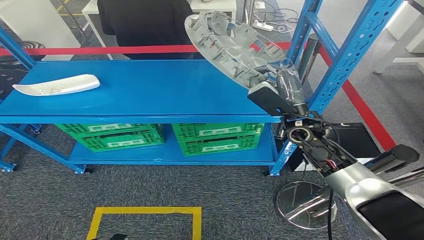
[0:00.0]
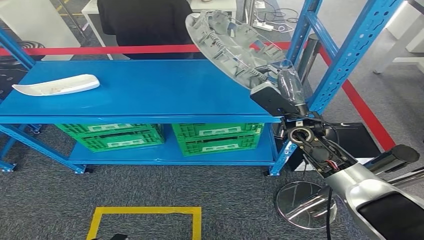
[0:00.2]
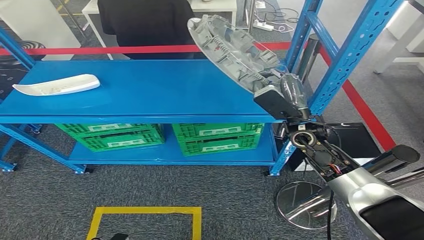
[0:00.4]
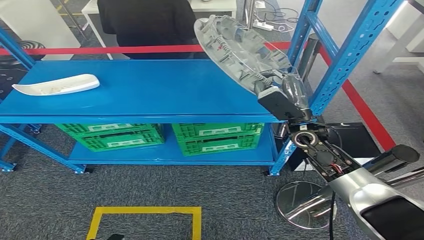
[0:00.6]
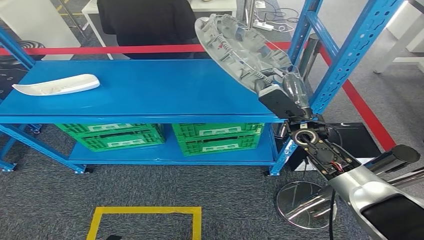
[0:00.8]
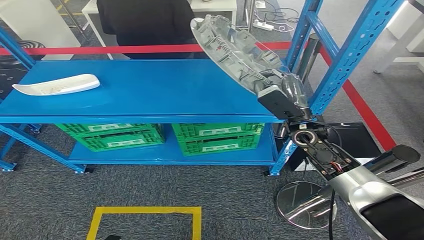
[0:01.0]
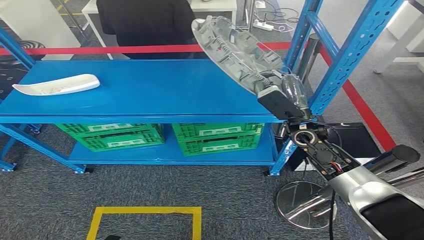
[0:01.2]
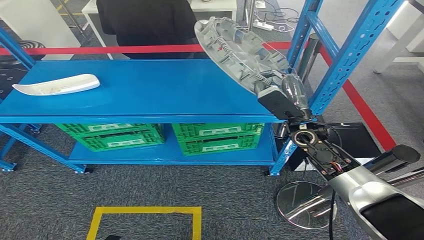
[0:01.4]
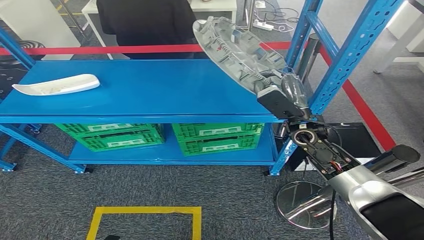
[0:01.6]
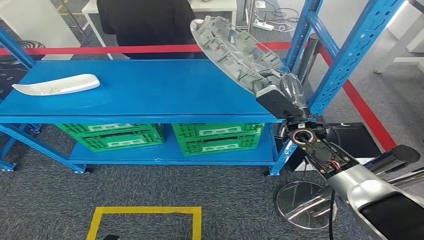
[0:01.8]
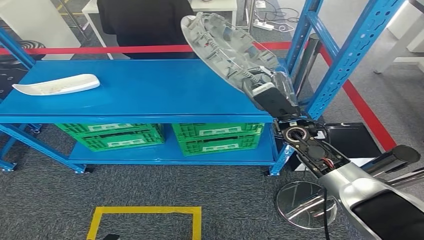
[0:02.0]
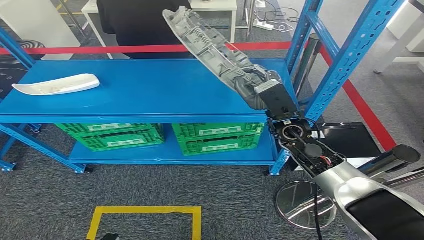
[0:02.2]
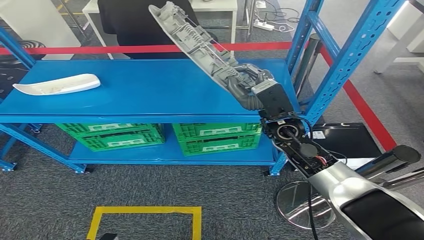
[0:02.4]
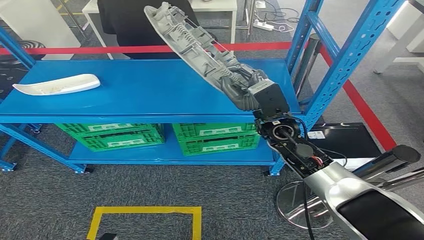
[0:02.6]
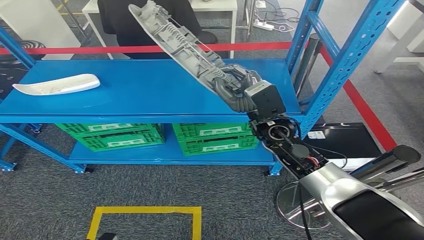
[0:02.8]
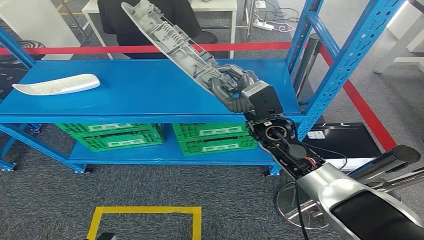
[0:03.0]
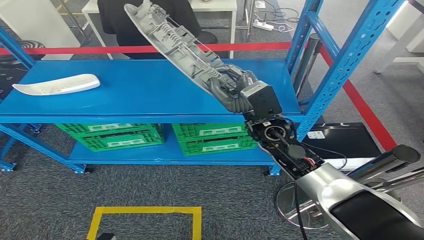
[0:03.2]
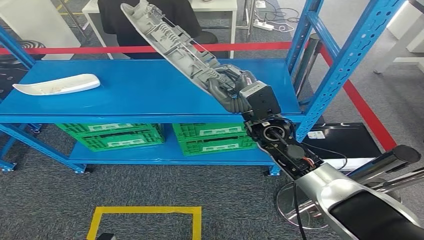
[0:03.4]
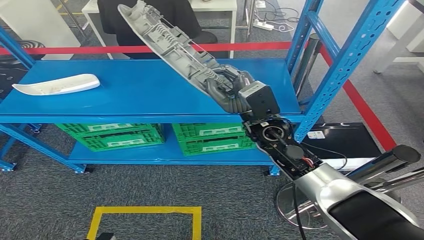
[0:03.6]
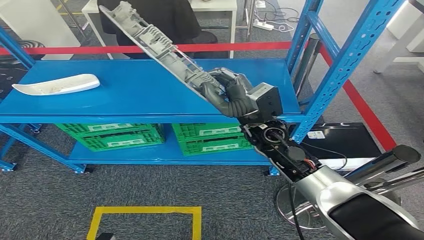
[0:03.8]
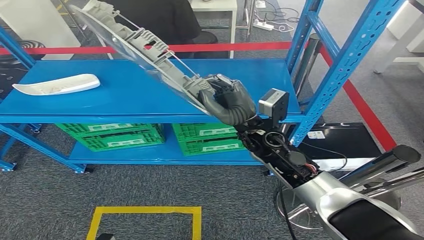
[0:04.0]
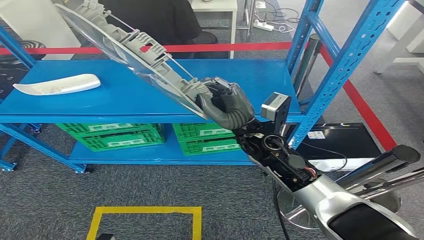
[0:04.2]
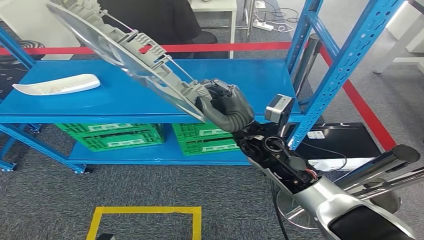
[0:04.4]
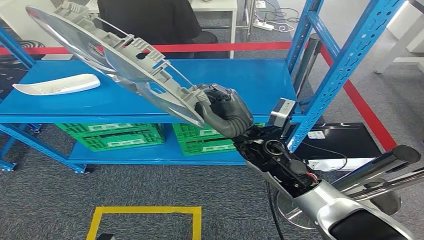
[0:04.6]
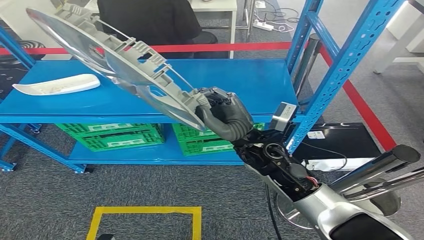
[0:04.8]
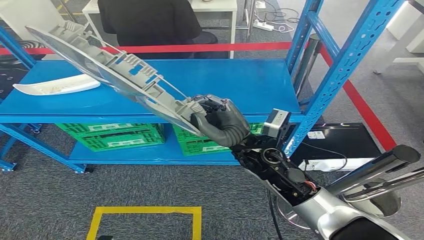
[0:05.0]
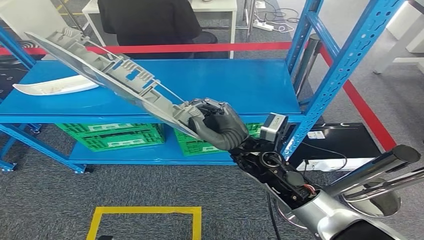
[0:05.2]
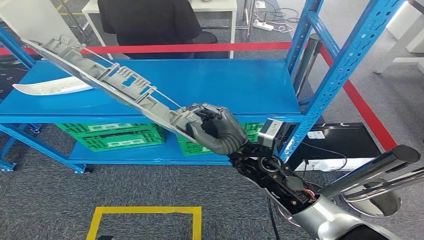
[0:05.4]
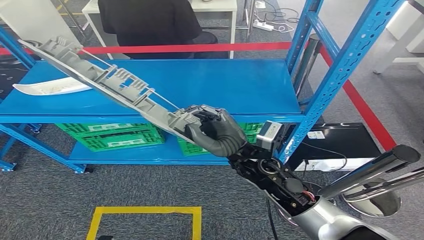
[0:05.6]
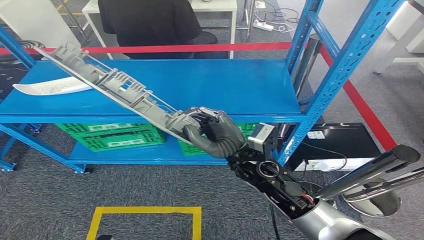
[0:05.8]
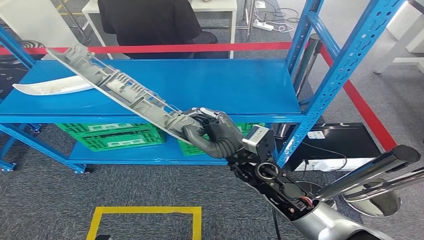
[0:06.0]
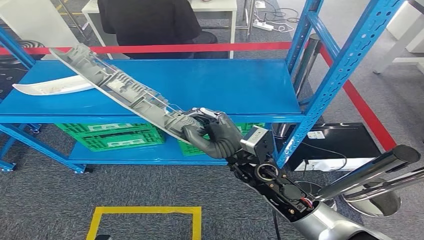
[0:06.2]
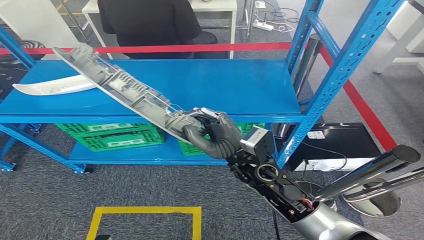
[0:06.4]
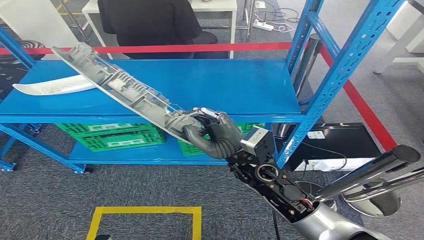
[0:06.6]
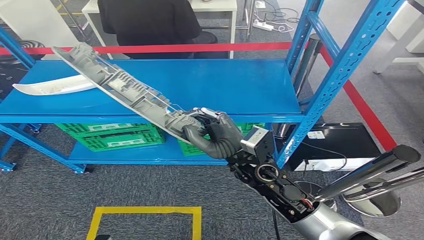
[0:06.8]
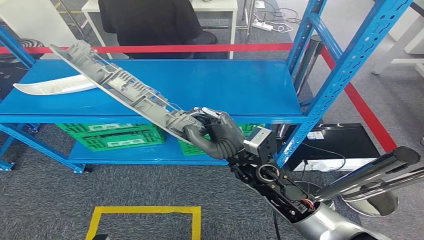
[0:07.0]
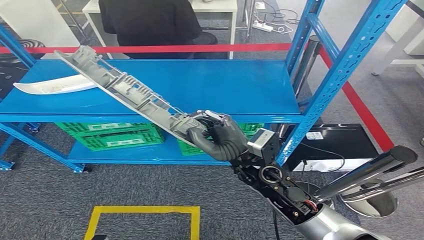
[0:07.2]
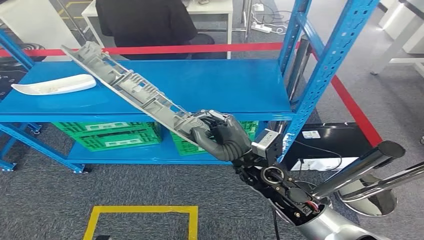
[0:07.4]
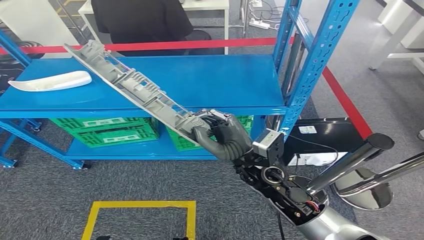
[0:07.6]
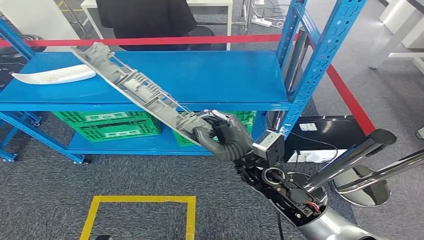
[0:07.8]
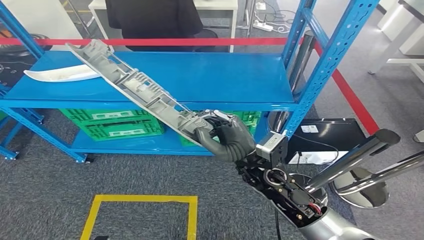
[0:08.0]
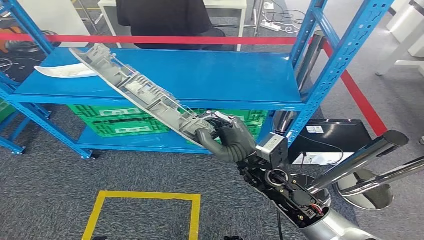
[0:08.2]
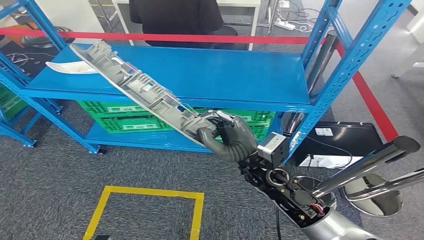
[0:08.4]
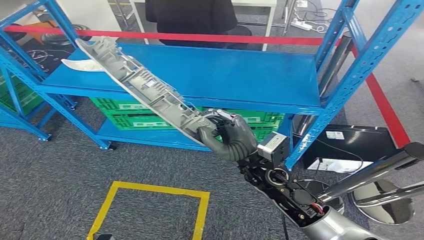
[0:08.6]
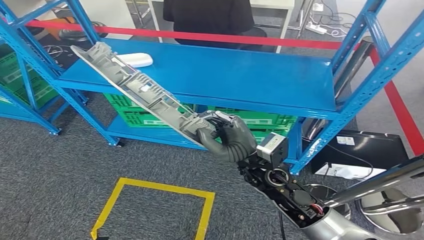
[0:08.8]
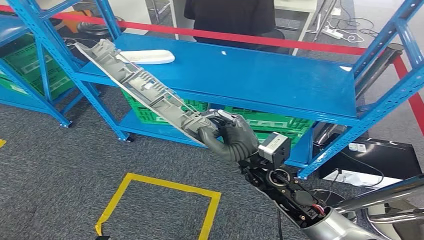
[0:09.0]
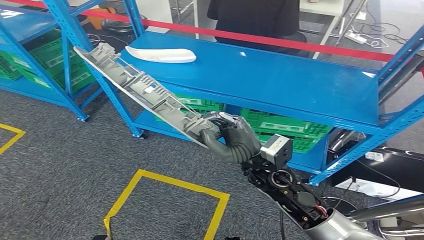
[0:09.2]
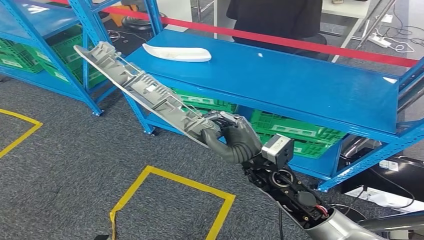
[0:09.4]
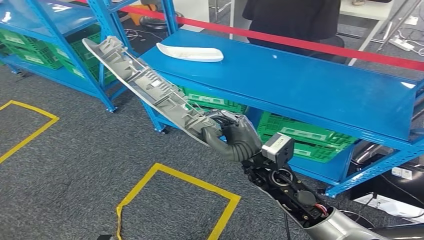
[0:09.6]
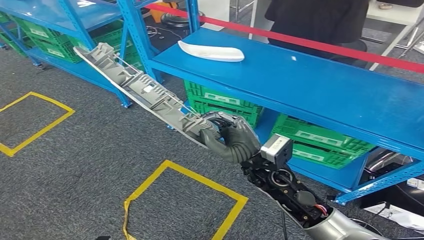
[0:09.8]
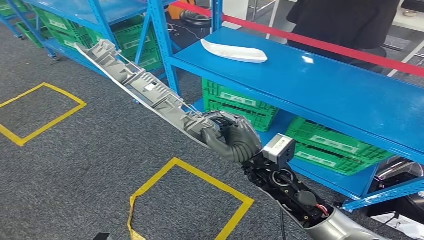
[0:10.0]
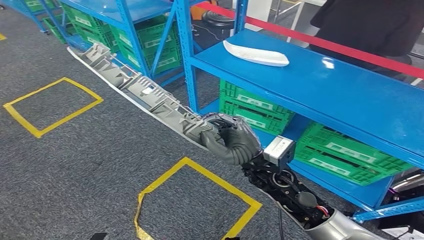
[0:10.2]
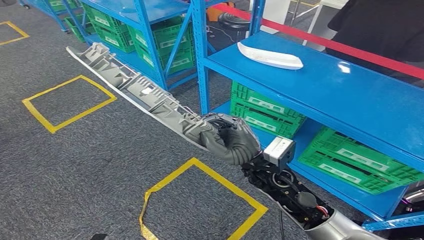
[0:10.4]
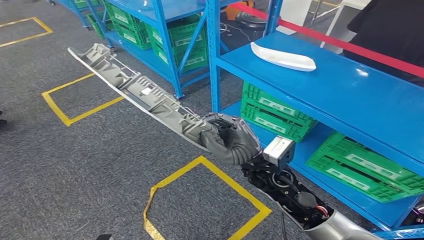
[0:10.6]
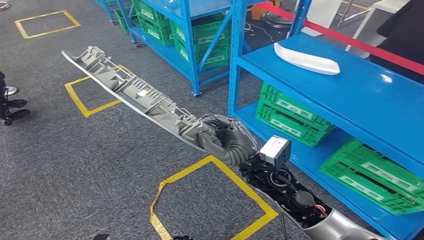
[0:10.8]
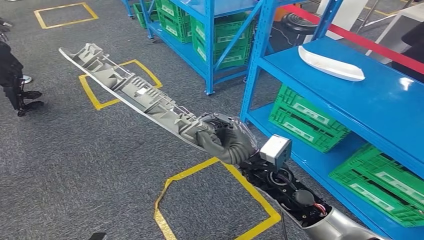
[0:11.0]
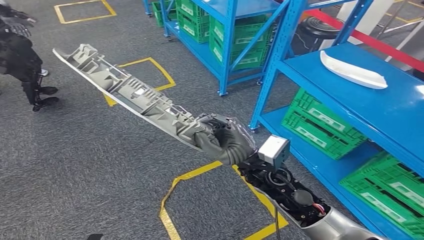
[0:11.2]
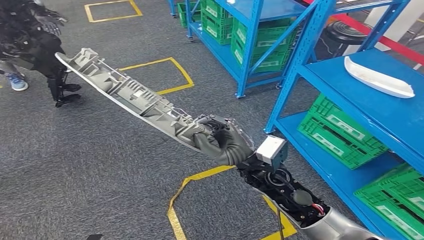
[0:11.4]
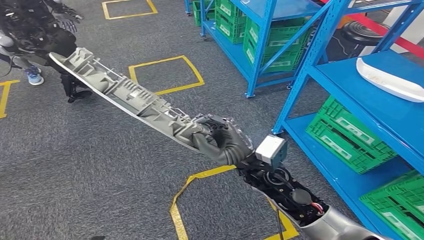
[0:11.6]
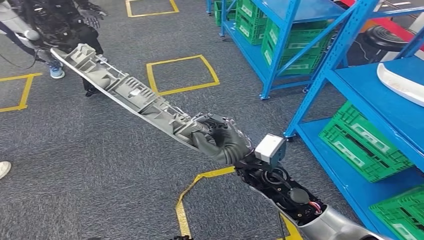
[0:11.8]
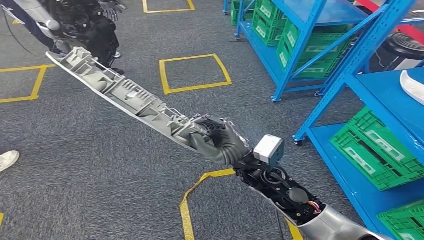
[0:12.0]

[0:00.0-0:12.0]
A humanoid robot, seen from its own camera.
0:00.0 to 0:01.6: The hands move only a little.
0:01.6 to 0:03.0: The right hand heads to the left, covering roughly 10 cm.
0:04.4 to 0:06.0: The right hand moves backward, roughly 5 cm.

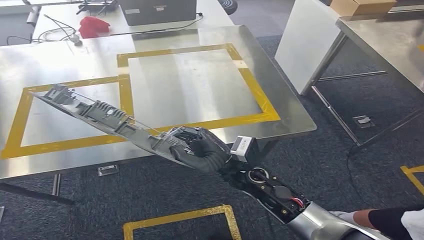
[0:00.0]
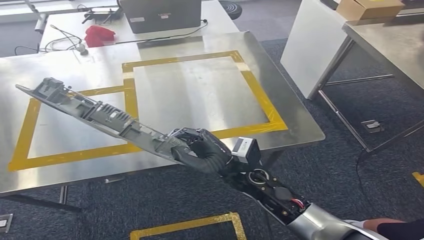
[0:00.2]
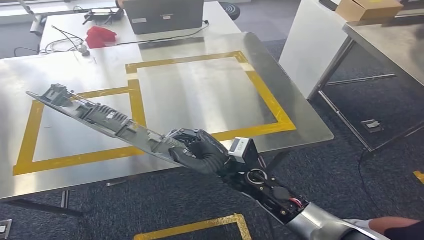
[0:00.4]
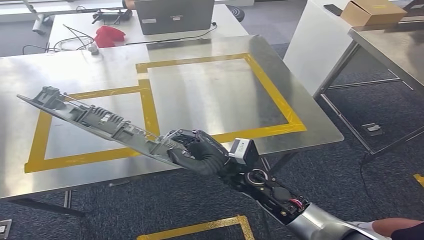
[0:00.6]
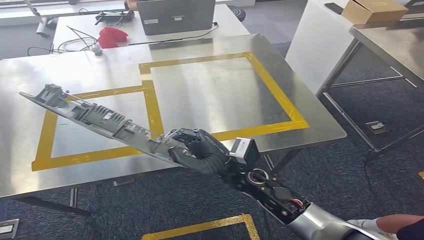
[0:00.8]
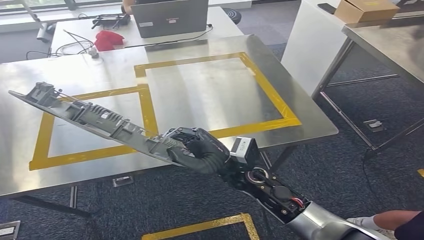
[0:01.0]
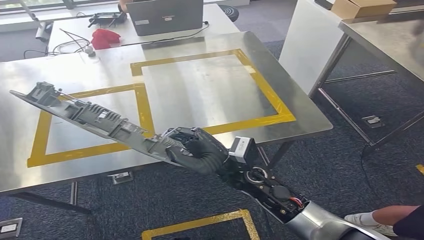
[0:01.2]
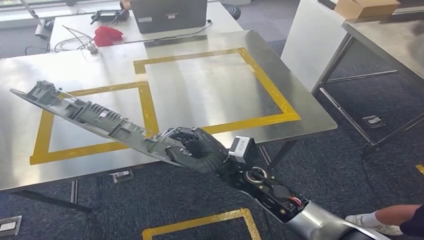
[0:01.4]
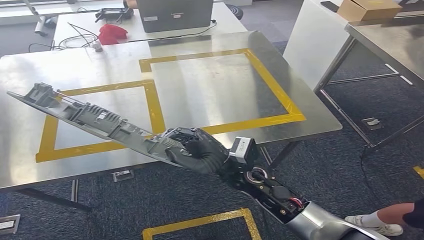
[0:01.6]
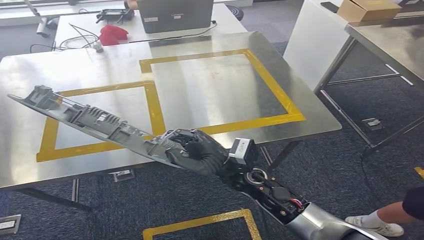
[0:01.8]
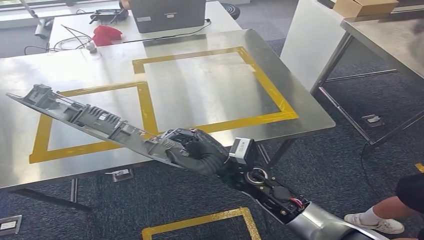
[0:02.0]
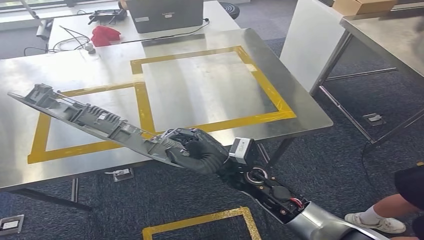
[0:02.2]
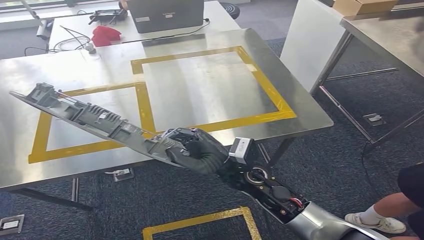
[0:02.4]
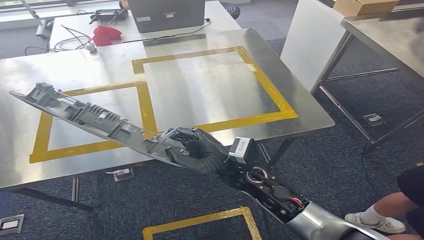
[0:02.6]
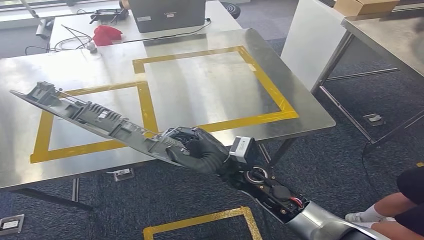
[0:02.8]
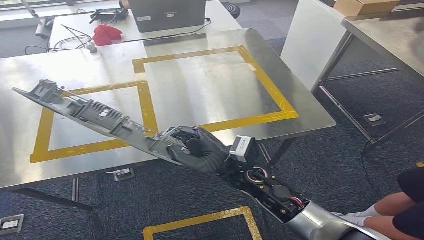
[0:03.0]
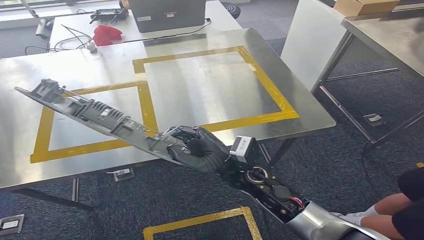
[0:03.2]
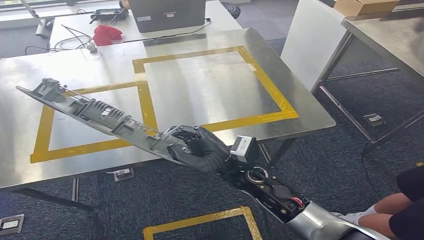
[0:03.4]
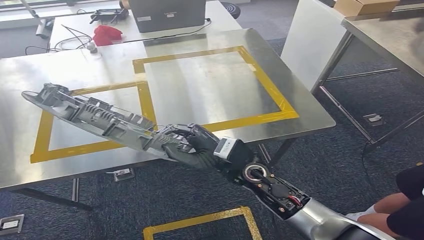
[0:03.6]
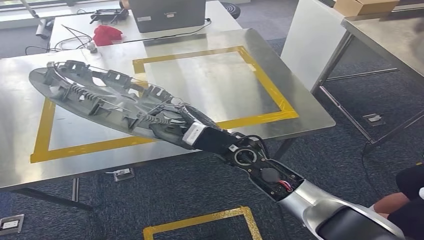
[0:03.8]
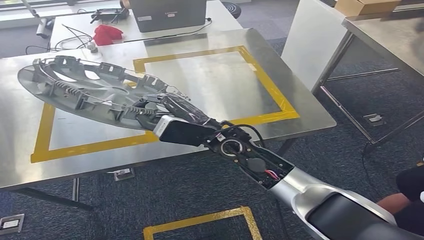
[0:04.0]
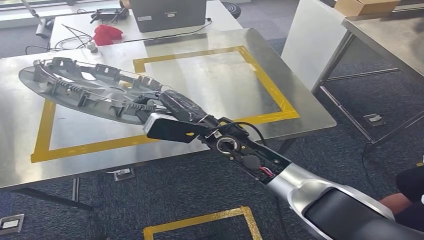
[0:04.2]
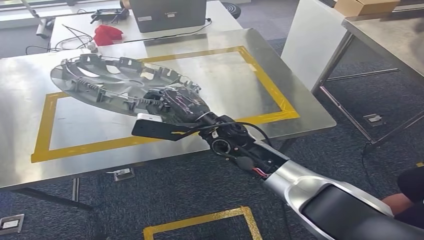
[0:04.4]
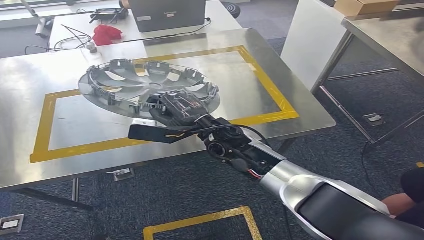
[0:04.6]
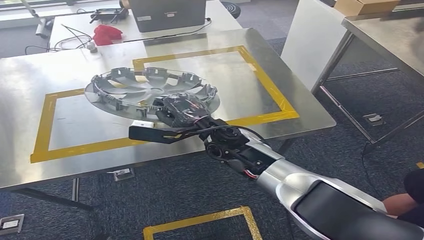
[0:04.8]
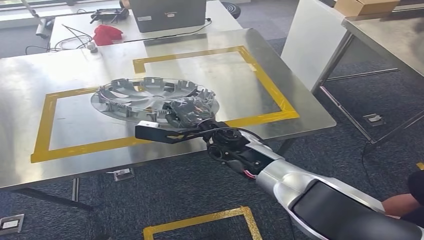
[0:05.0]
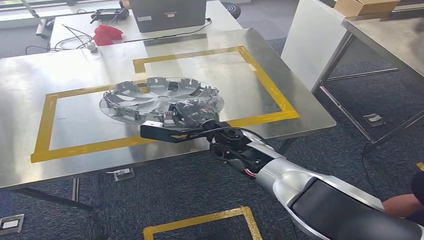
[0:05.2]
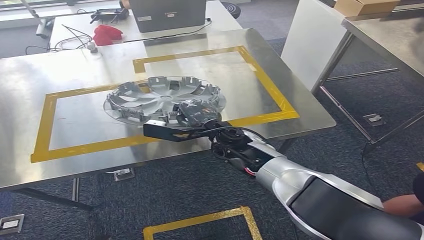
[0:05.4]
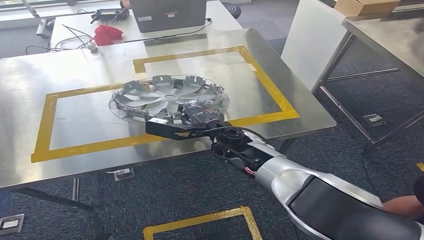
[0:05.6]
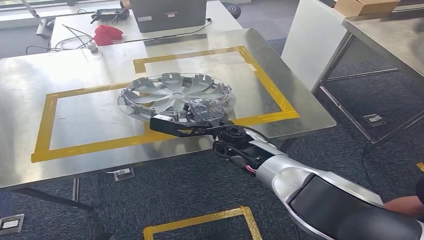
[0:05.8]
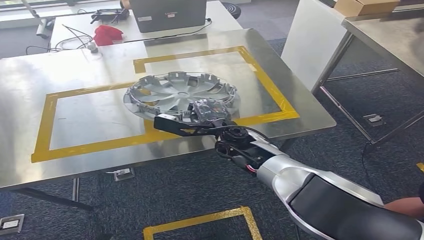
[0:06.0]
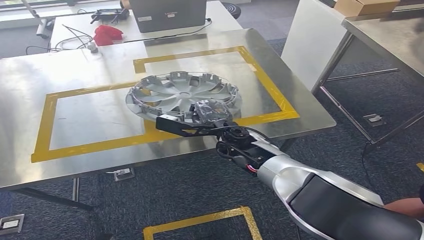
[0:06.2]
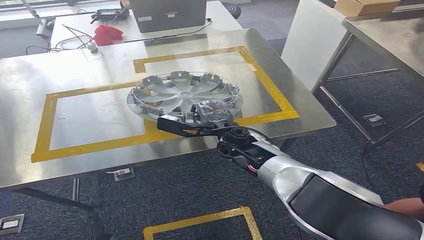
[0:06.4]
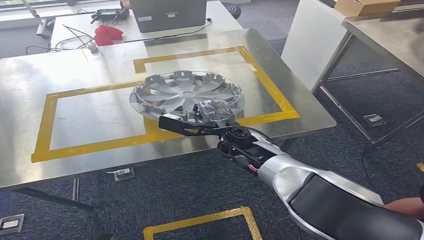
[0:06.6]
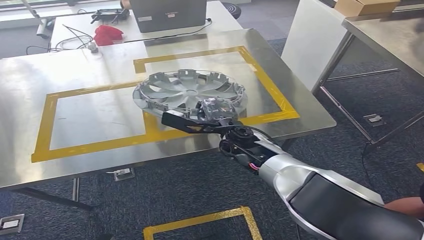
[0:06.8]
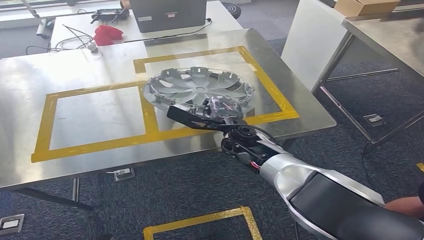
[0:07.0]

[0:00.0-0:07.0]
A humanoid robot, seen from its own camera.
Step, 0:00.0 to 0:04.2: Move the small component to the workbench.
0:01.4 to 0:02.8: Neither hand changes place.
0:02.8 to 0:04.2: The right hand heads upward and forward, covering some 10 cm.
0:04.2 to 0:05.6: The right hand travels downward by some 5 cm.
0:05.6 to 0:07.0: The hands move only a little.
